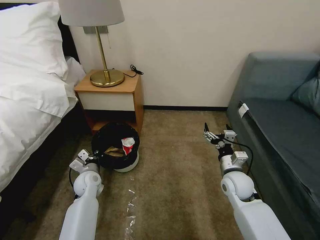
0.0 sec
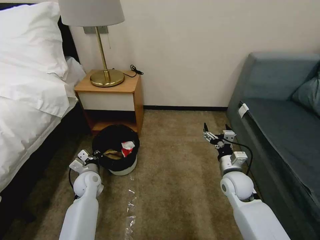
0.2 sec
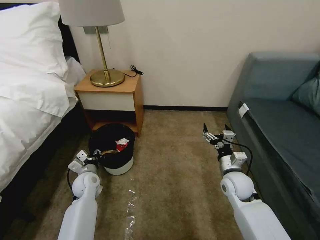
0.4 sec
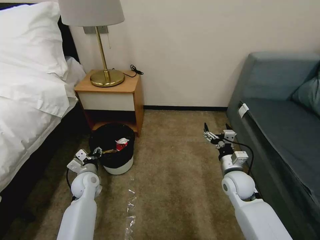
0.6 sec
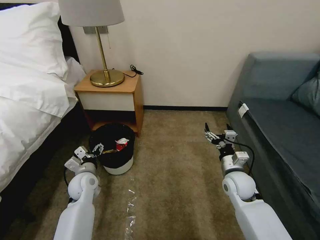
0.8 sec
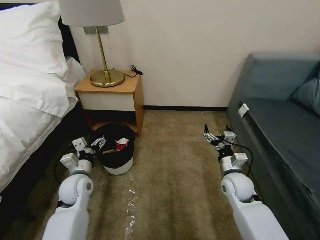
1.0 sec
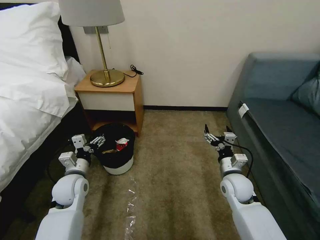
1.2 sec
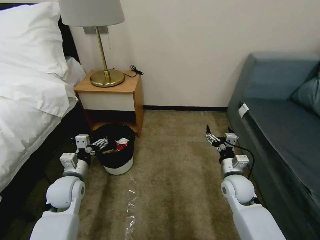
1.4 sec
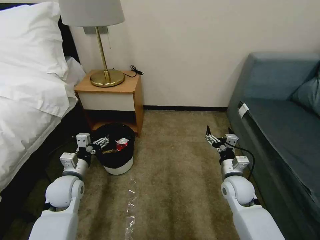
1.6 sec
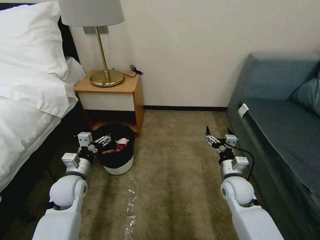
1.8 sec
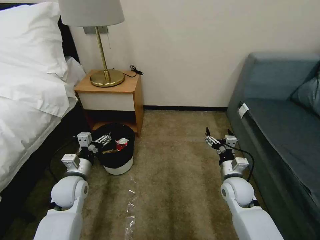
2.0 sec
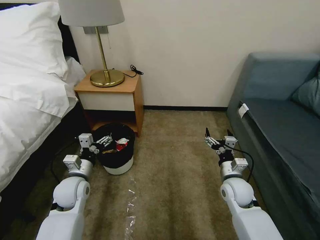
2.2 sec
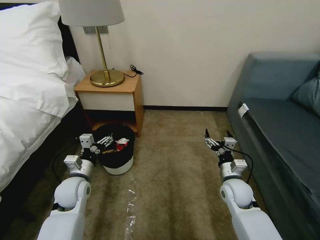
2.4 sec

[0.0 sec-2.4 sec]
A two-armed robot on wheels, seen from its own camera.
Task of the whole recording: Pick up the trash bin, then pick up the garbage on the floor and place it into the trash bin.
0.0 sec to 1.2 sec: The left gripper travels upward and backward by some 10 cm, and opens its fingers.
1.2 sec to 2.4 sec: The grippers move only a little.

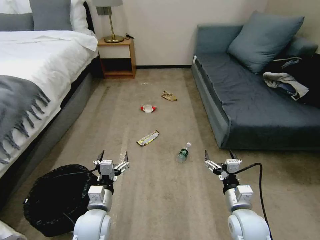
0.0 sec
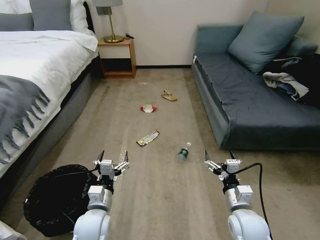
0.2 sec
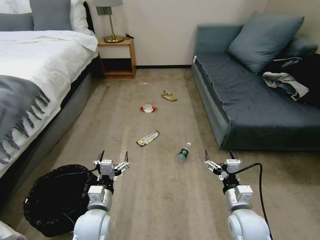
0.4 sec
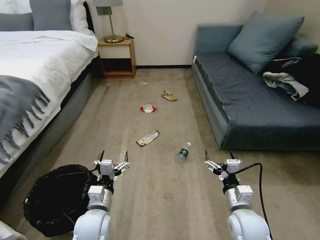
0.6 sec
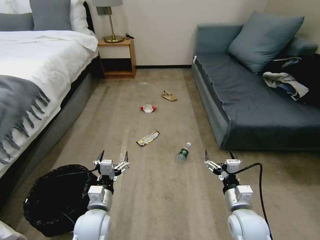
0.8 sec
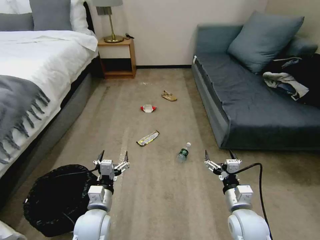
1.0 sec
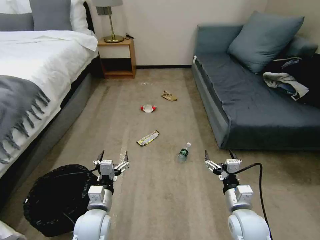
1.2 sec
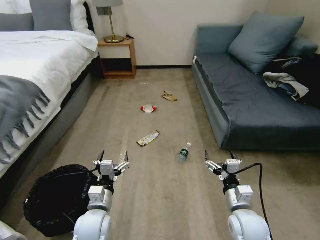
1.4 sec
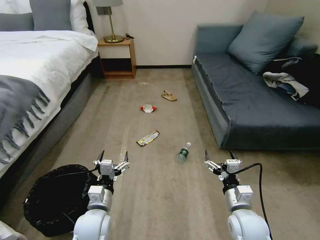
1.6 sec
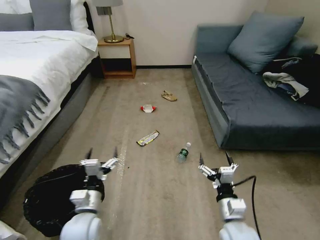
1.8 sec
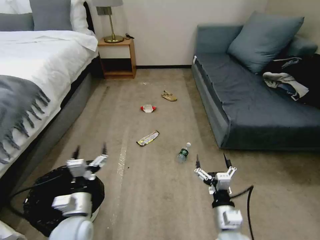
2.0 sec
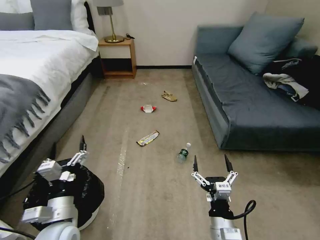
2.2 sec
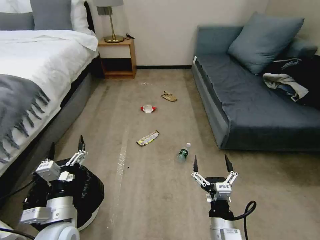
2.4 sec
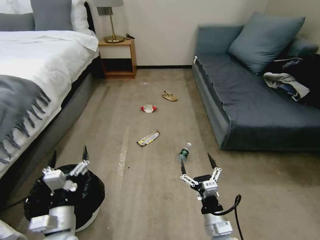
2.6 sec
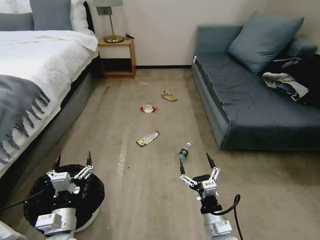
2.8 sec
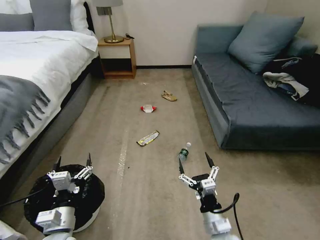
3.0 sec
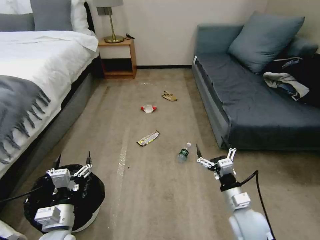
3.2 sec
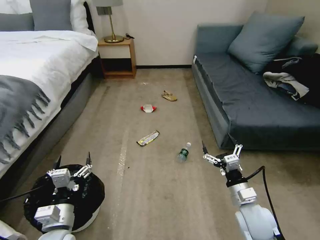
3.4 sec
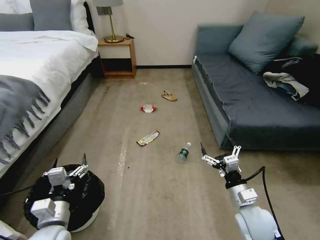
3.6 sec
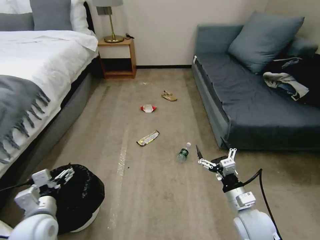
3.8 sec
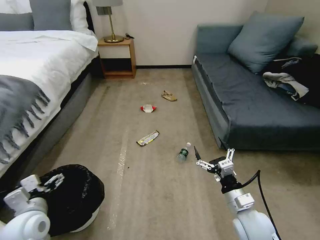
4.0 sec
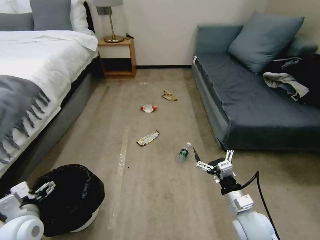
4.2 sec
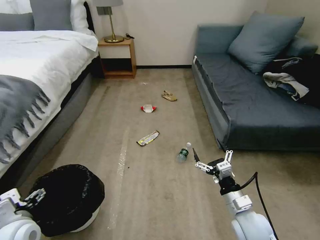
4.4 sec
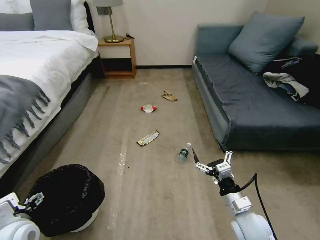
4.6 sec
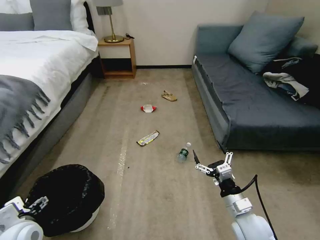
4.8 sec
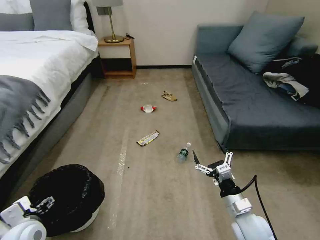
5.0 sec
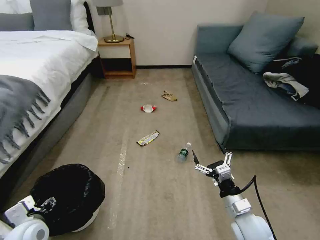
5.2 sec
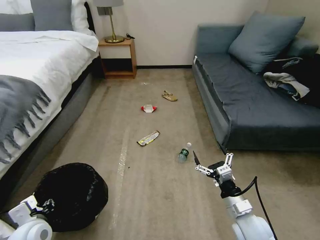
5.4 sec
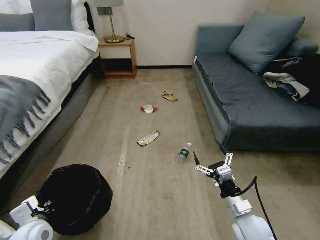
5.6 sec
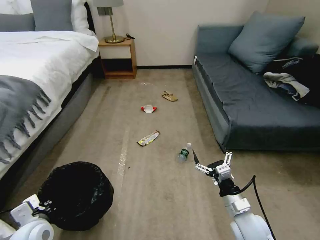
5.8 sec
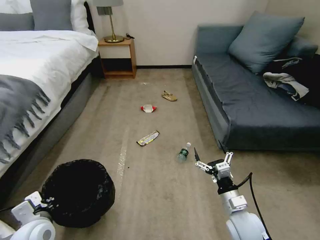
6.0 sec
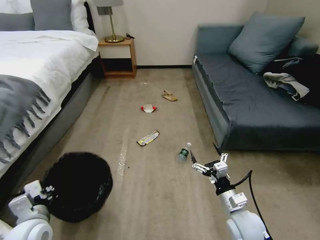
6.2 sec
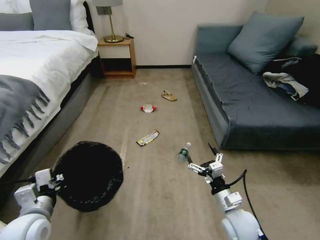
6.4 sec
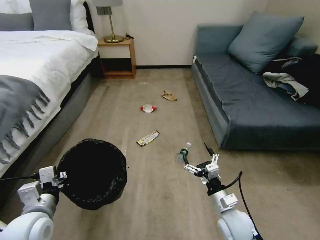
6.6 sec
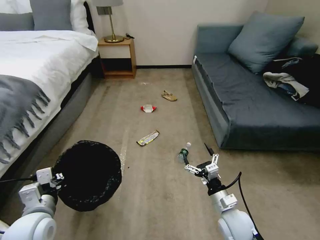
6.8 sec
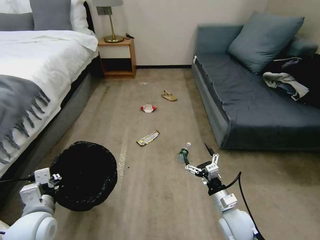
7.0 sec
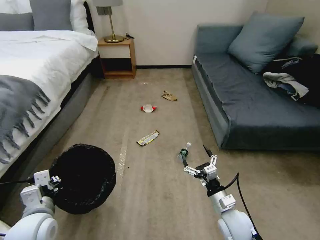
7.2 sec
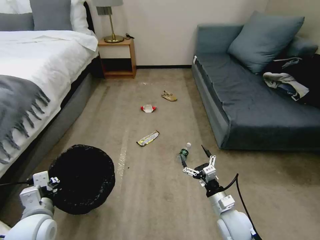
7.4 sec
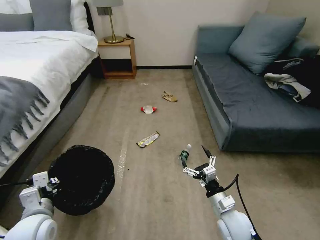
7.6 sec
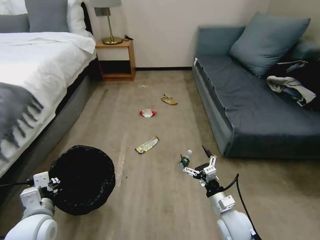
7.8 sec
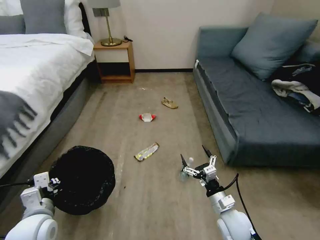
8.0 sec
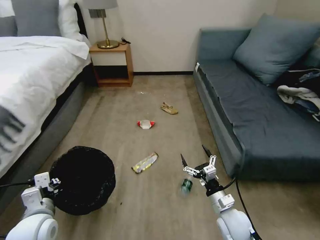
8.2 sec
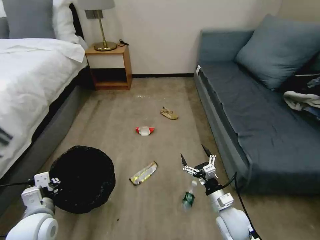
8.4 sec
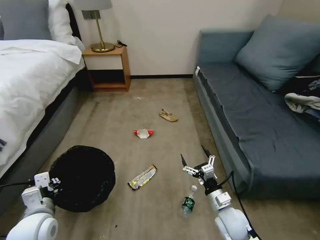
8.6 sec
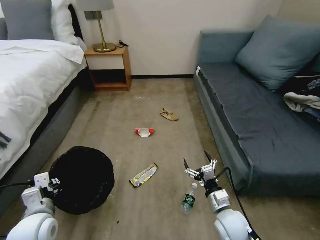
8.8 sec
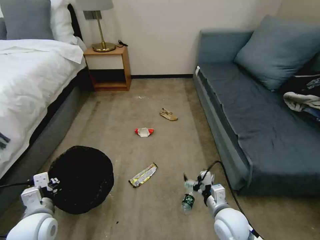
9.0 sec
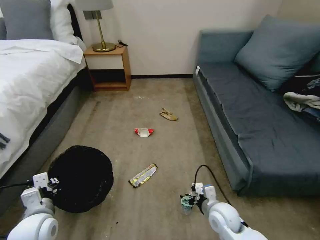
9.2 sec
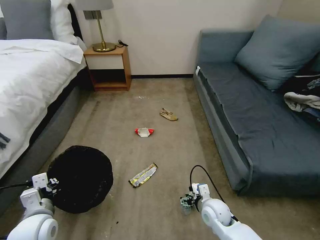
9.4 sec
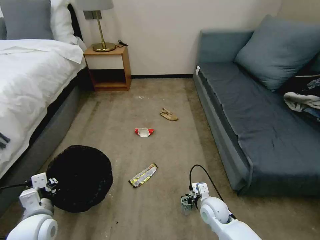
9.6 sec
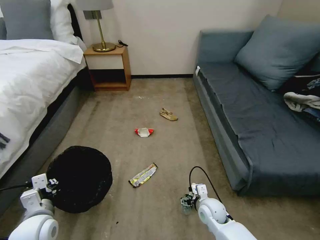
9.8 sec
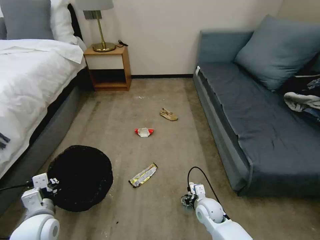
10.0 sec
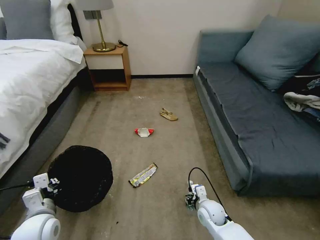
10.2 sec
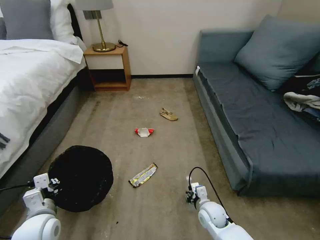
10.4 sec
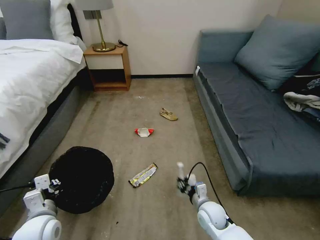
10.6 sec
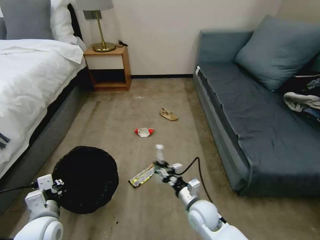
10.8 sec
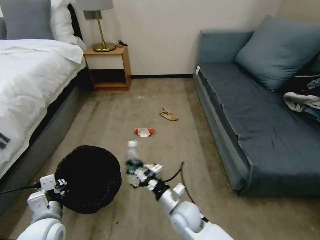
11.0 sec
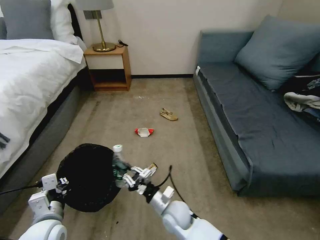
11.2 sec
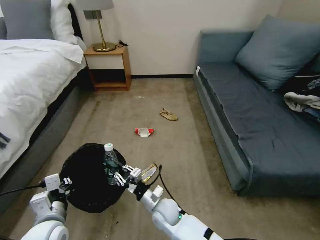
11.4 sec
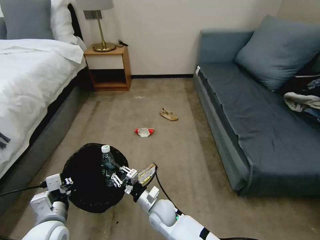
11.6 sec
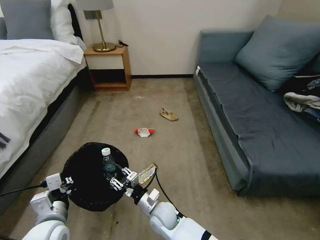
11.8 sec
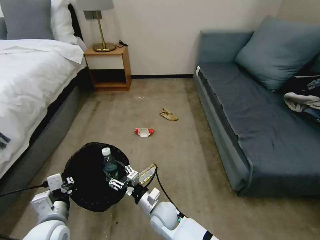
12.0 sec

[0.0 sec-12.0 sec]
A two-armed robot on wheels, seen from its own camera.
Task of the whole recording: Pick up the trash bin, then pick up the garbage on the floor and place it into the trash bin.
1.6 sec to 3.0 sec: The two grippers go roughly 10 cm to the left and backward.
3.0 sec to 4.4 sec: The left gripper moves to the left, about 10 cm. Meanwhile the right gripper shifts some 10 cm to the right and forward.
4.4 sec to 6.0 sec: The left gripper closes.
9.0 sec to 10.4 sec: The right gripper heads downward and forward, covering roughly 10 cm, and closes its fingers.
10.4 sec to 12.0 sec: The left gripper shifts by some 5 cm; the right gripper heads to the left, covering roughly 20 cm.

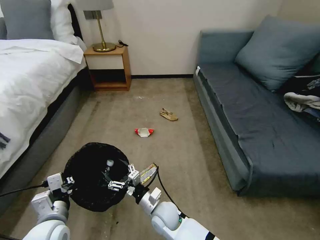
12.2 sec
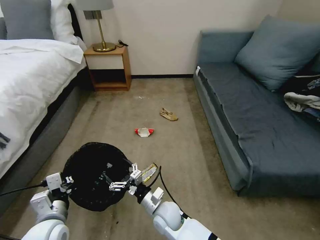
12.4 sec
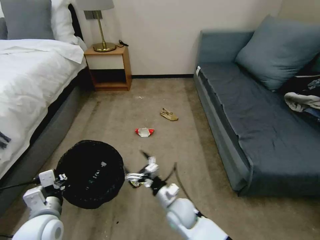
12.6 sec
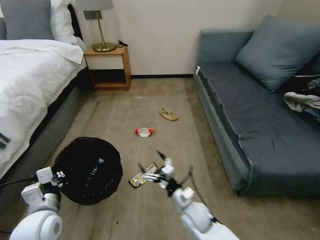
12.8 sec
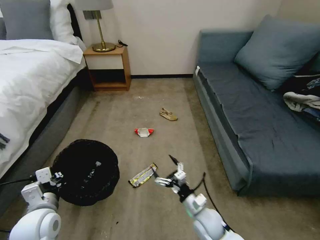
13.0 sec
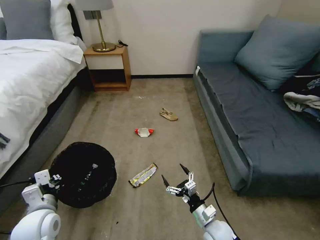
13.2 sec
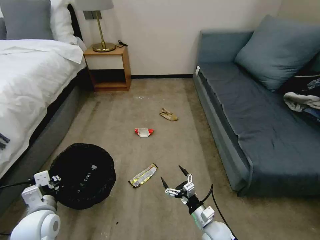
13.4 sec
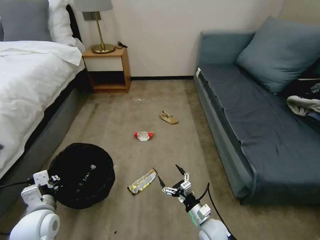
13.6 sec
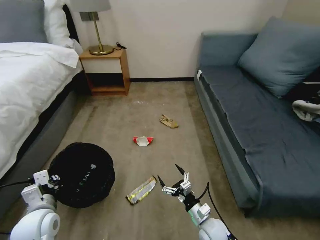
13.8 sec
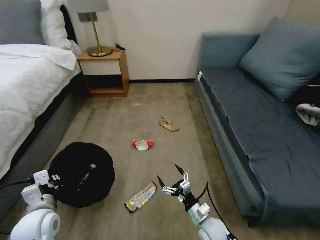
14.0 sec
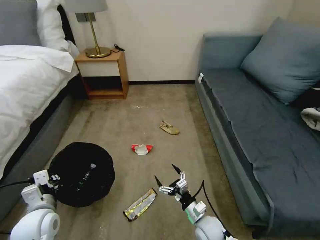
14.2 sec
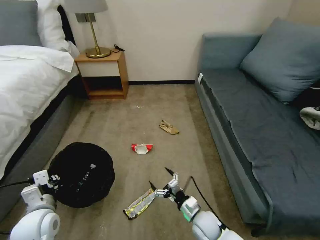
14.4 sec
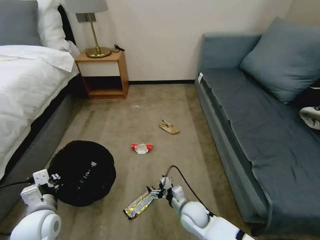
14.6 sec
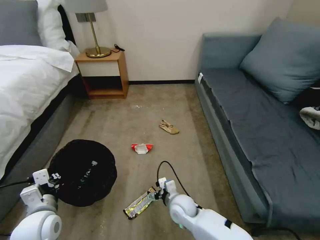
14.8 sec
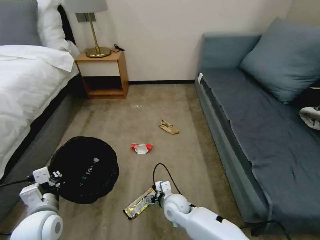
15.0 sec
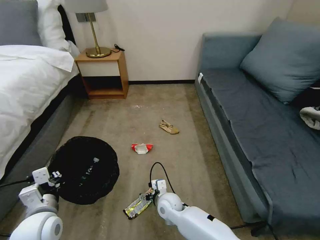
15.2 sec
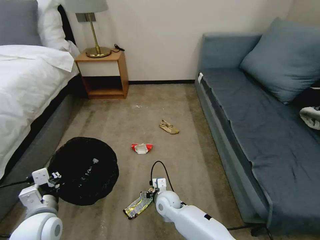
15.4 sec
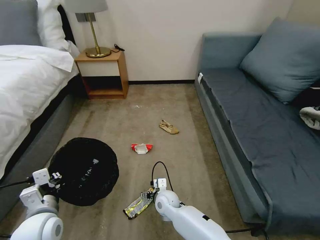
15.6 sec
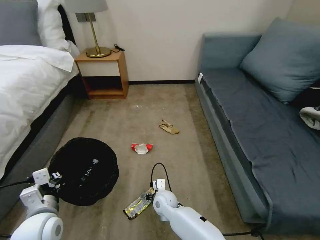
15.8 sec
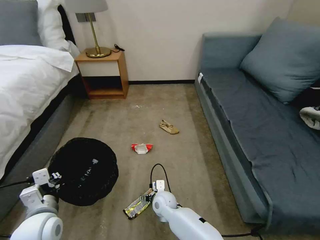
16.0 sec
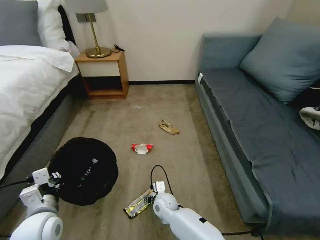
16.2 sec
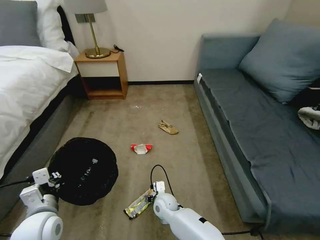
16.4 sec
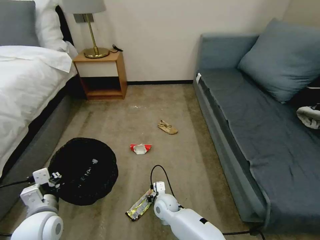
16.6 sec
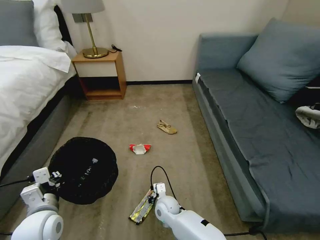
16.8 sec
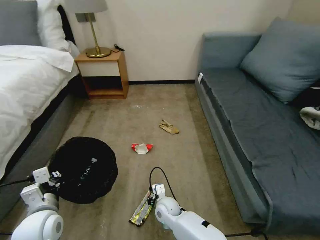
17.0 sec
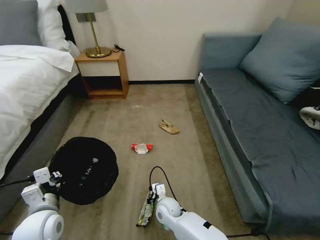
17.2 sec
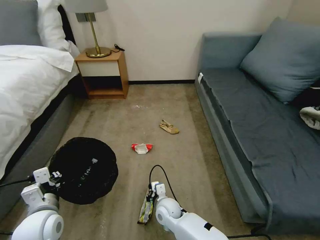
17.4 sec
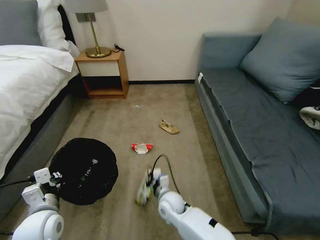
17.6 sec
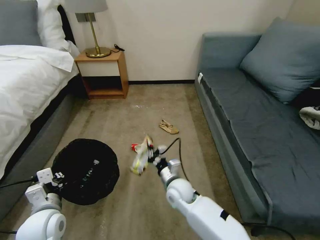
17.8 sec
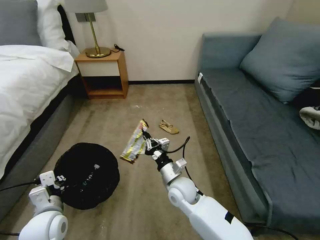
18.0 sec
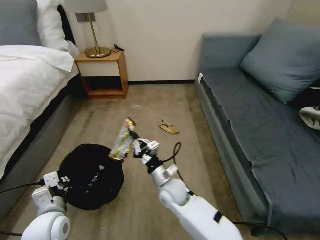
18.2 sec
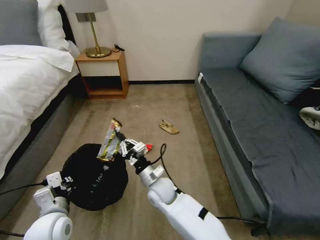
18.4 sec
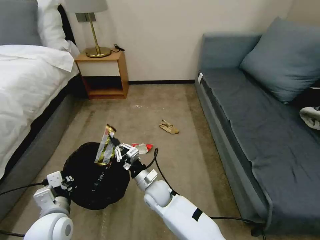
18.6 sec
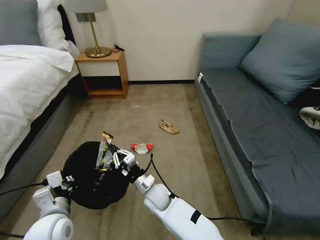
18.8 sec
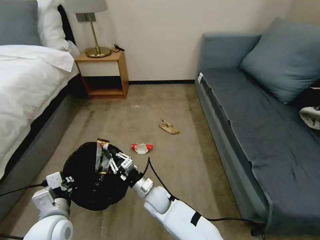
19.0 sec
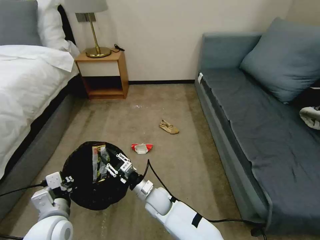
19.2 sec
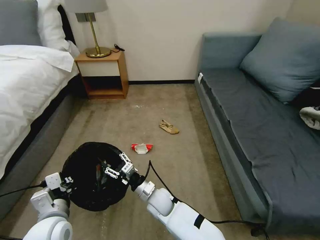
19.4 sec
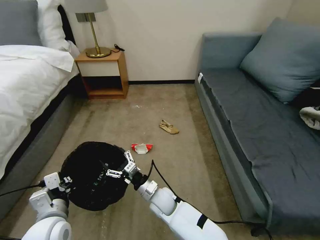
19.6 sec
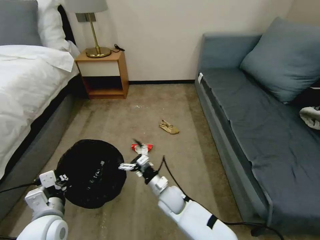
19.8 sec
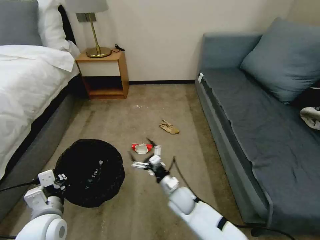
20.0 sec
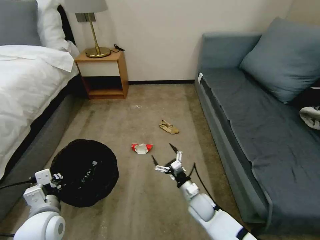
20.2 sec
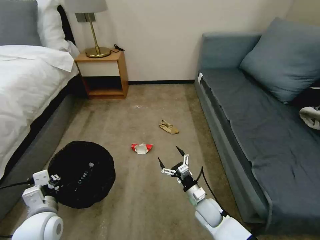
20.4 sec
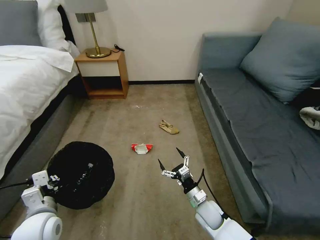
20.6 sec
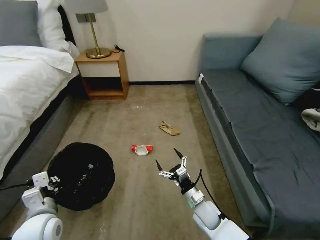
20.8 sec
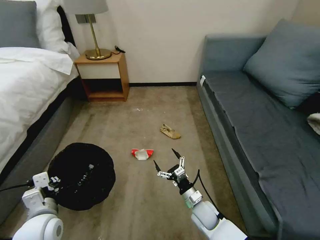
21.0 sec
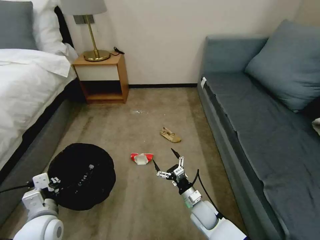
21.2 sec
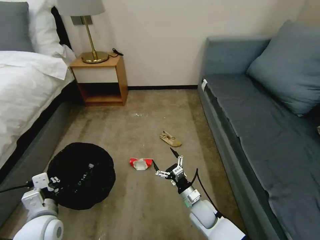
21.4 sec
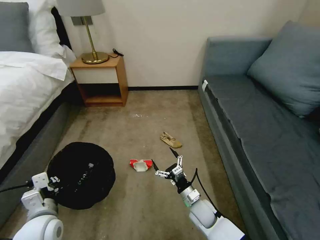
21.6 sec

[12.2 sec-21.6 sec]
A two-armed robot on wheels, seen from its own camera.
Task of the whole recording: Pick up the trash bin, then pick up the garbage on the floor and place it into the trash bin.
12.2 sec to 13.8 sec: The left gripper changes place by about 5 cm. The right gripper heads to the right, covering roughly 15 cm.
13.8 sec to 15.4 sec: The right gripper heads to the left and forward, covering about 20 cm.
15.4 sec to 17.0 sec: The right gripper closes.
17.0 sec to 18.4 sec: The right gripper moves upward, about 10 cm.
18.4 sec to 20.0 sec: The right gripper goes roughly 10 cm to the right and downward, and opens its fingers.
20.0 sec to 21.6 sec: The right gripper shifts roughly 5 cm to the right.
